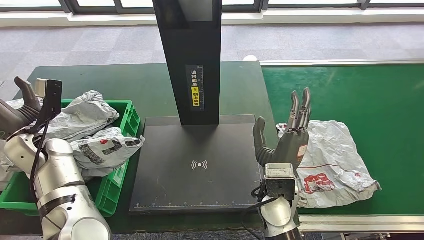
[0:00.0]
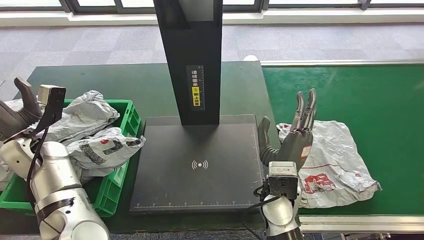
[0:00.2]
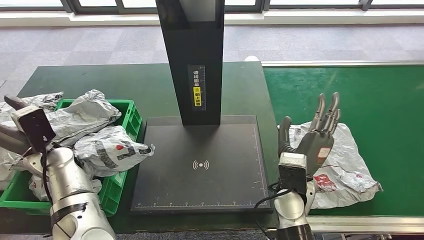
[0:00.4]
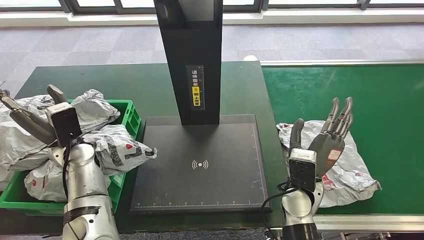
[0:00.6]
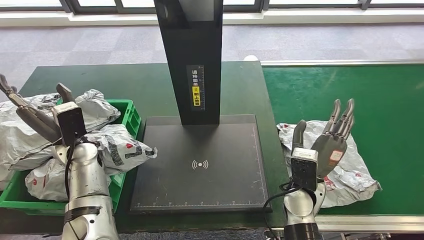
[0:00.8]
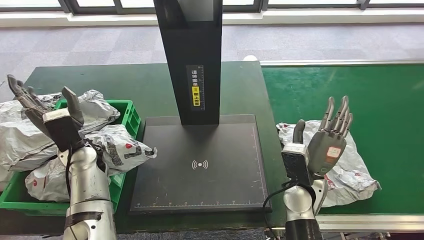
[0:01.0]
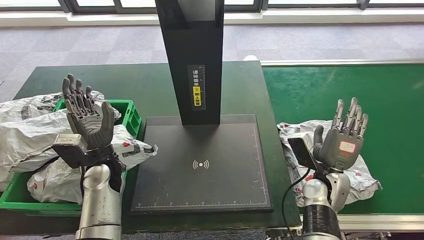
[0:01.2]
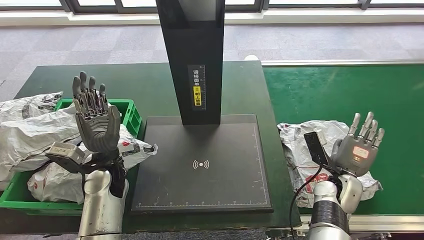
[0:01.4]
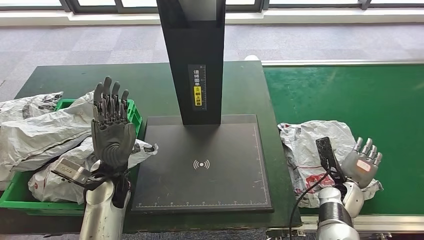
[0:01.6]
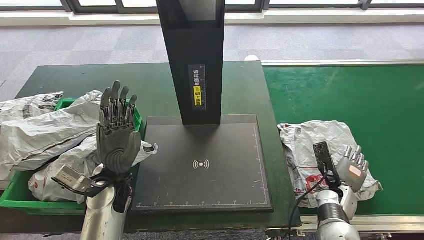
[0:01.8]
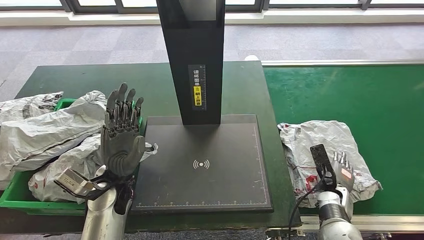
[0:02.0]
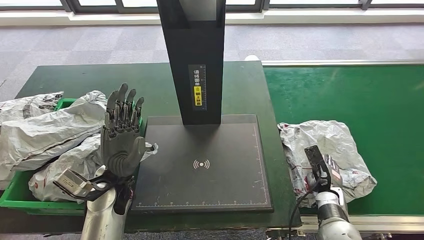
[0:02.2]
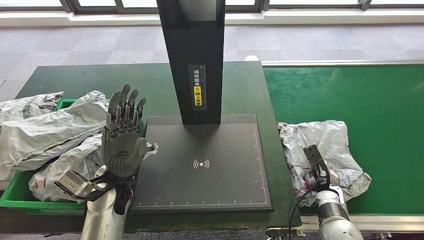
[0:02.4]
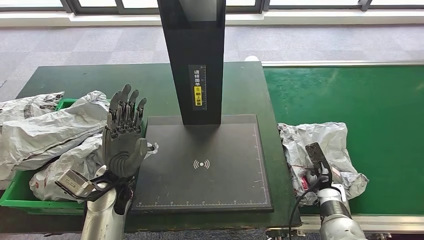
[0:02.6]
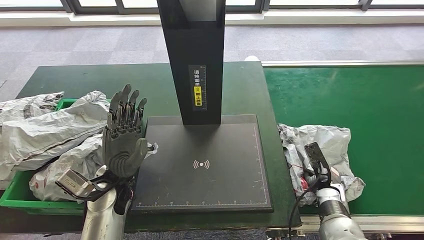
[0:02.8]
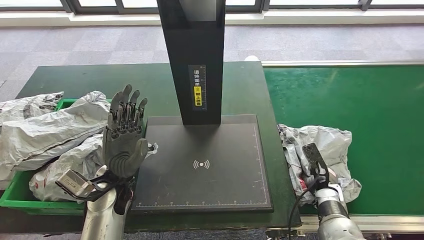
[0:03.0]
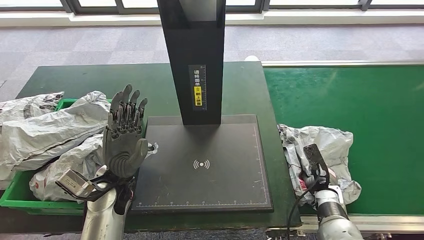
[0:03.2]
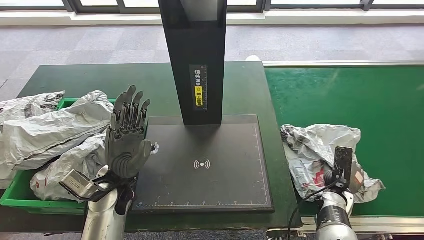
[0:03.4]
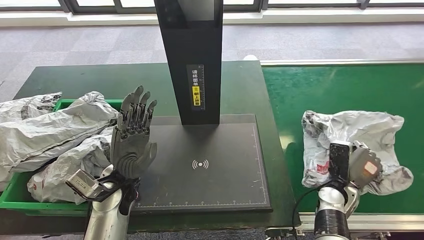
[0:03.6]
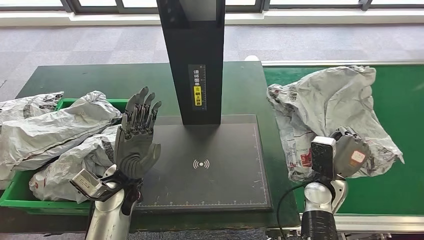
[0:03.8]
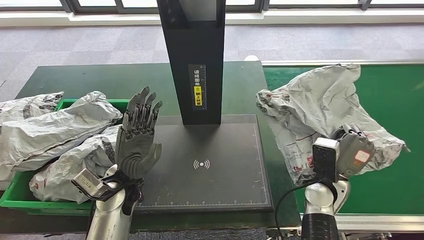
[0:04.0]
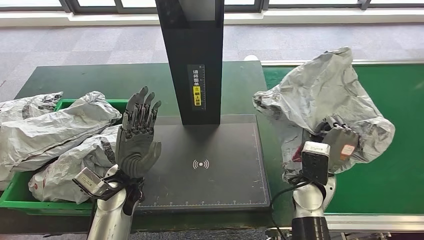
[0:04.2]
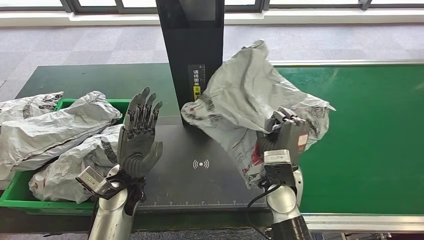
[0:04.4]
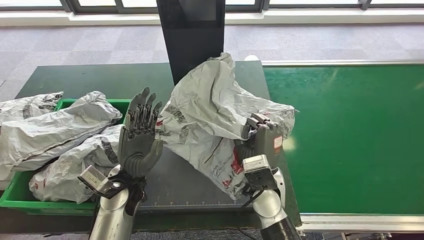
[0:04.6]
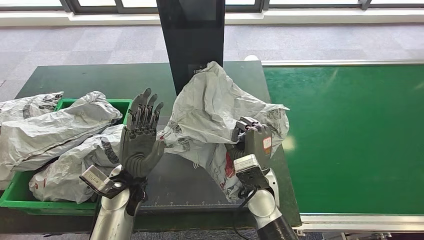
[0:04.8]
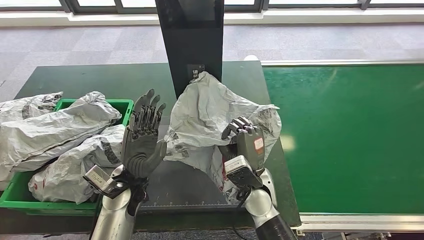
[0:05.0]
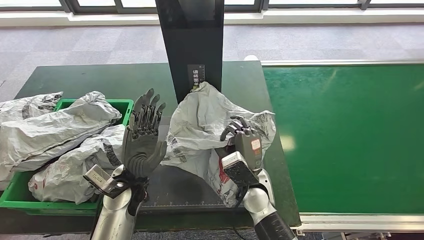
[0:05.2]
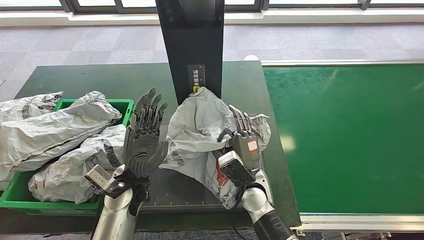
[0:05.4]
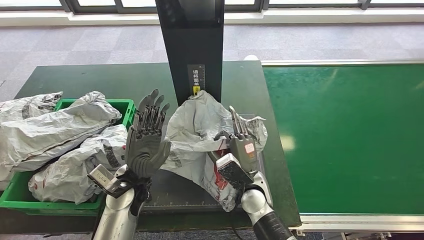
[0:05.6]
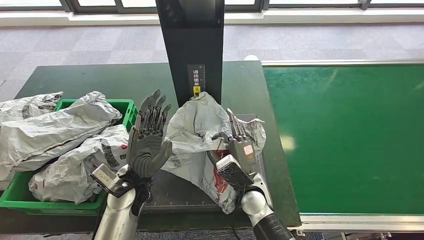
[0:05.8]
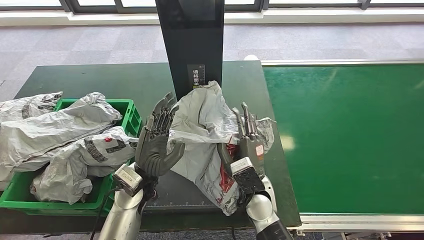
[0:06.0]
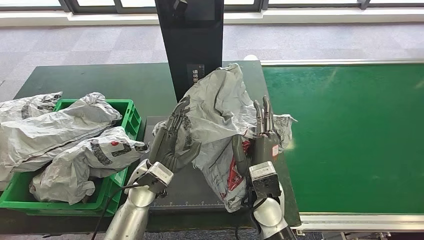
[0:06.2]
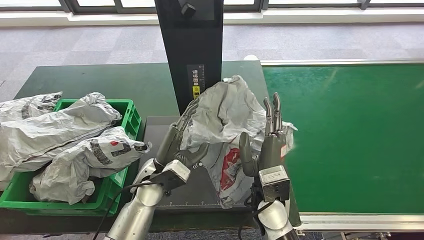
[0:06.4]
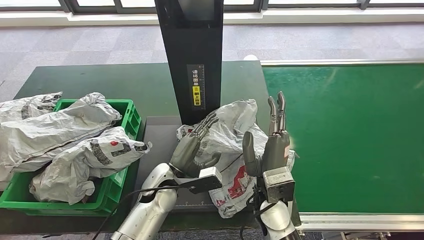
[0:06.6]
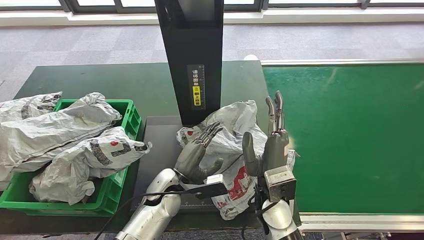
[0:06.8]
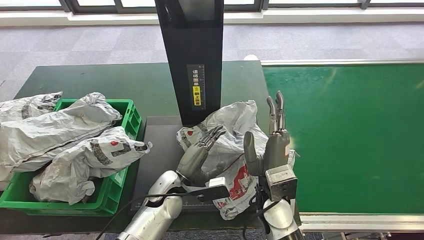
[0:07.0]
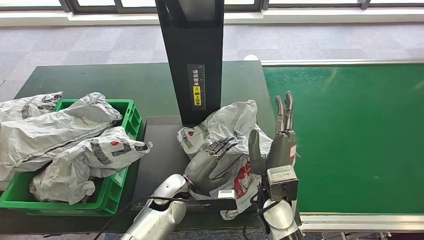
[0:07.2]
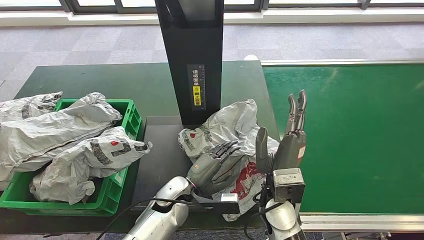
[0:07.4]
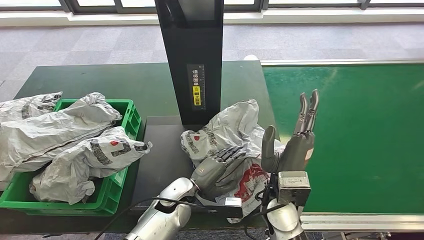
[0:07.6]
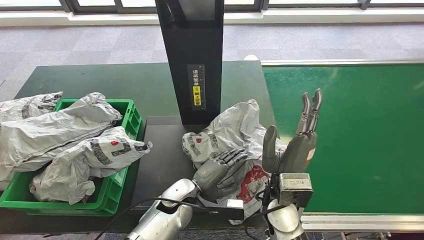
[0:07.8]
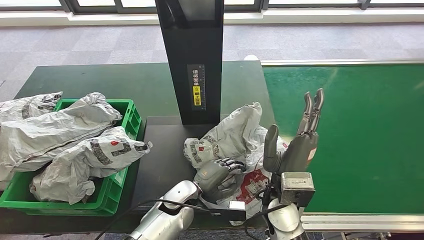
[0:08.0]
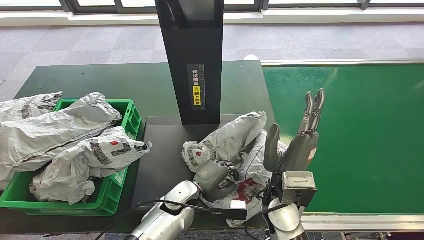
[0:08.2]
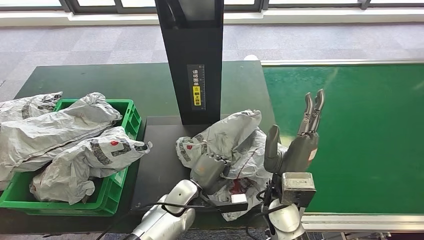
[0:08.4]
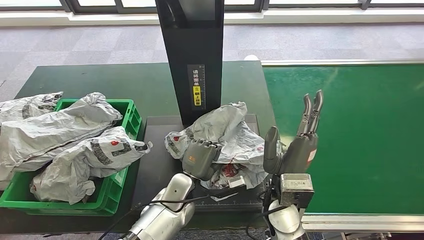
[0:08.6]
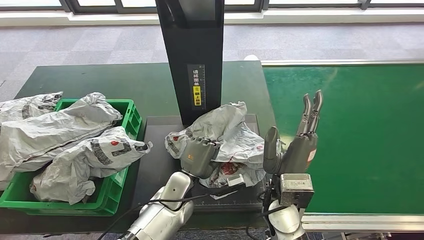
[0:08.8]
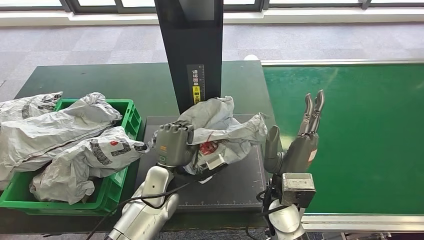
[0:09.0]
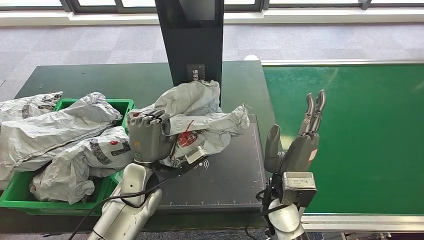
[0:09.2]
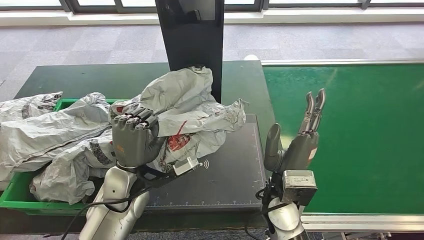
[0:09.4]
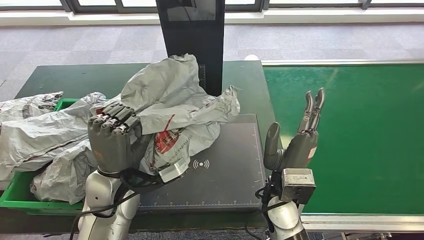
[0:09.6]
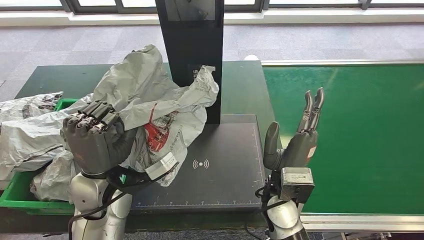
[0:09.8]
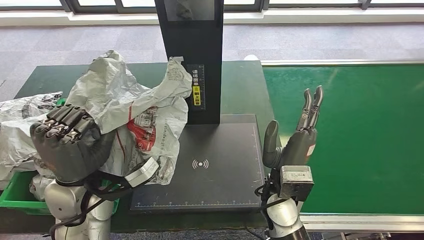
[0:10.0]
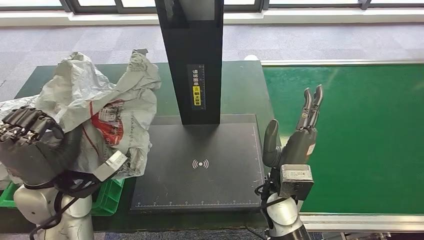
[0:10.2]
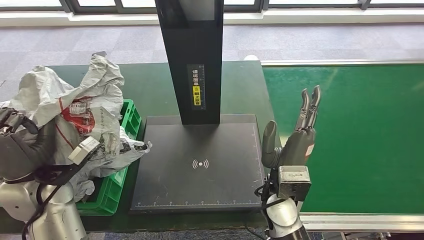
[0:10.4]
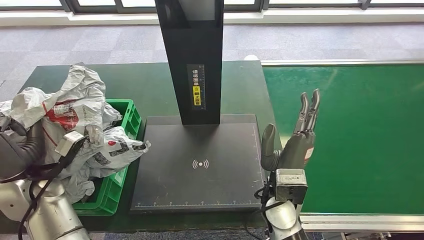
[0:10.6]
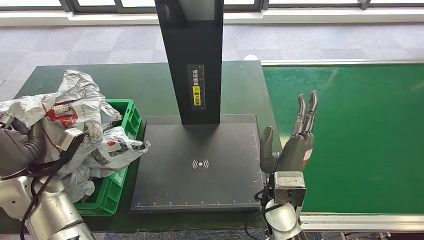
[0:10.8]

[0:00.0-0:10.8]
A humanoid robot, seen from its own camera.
Step, 0:01.4 to 0:04.0: Pick up the parcel from the conveyor belt.
Step, 0:04.2 to 0:06.8: Place the parcel onto the inbound machine.
Step, 0:07.0 to 0:09.8: Pick up the parcel from the inbound machine.
0:06.2 to 0:07.8: The left hand is displaced downward and to the right by roughly 10 cm.
0:07.8 to 0:09.2: The left hand goes roughly 10 cm upward and to the left.

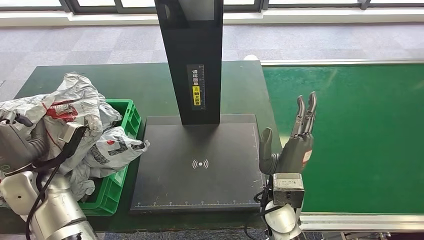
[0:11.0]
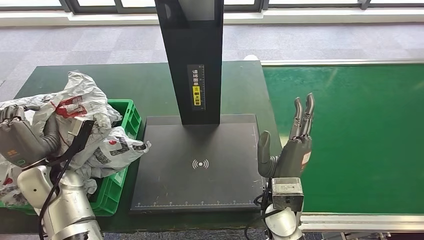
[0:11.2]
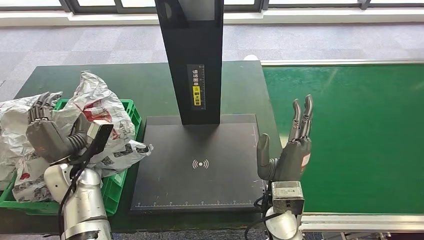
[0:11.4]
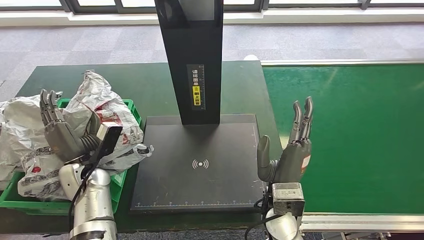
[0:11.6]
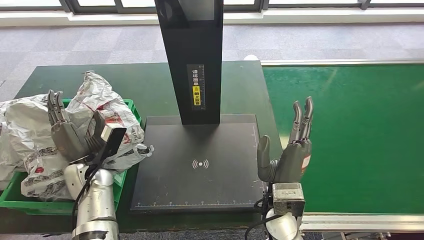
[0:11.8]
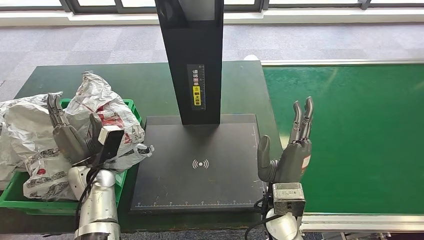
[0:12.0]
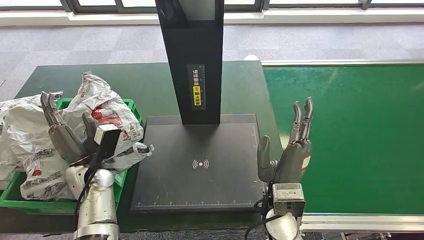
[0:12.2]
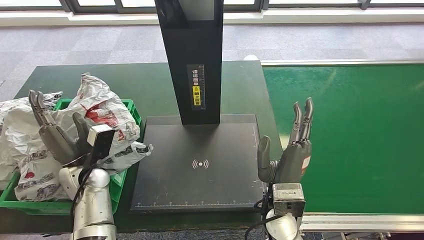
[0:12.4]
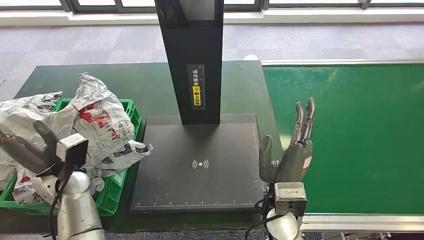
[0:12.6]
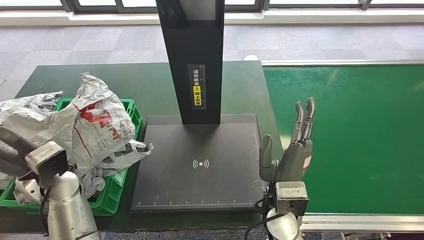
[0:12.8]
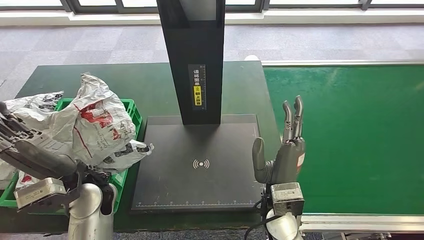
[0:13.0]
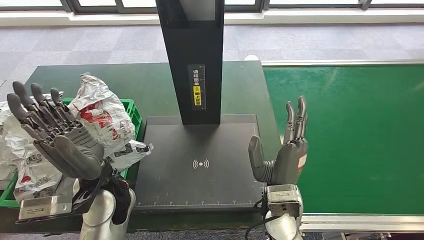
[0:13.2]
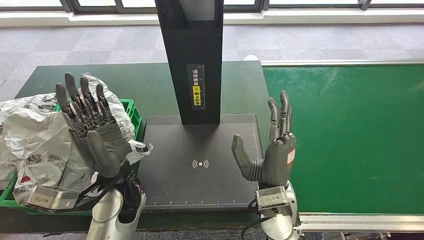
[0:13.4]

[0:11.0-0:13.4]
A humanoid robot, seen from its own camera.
Step, 0:11.0 to 0:13.4: Place the parcel into the delivery box.
0:11.0 to 0:12.2: The left hand moves to the right and downward, some 10 cm.
0:12.2 to 0:13.4: The left hand travels to the right and upward by roughly 15 cm.
